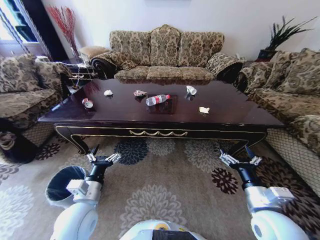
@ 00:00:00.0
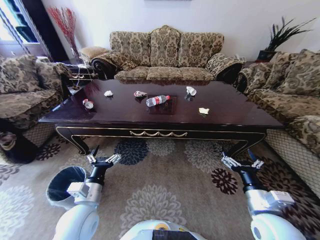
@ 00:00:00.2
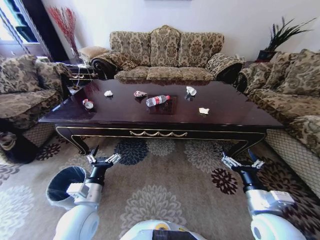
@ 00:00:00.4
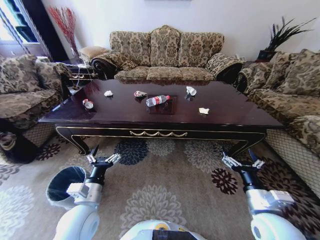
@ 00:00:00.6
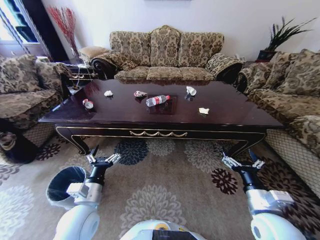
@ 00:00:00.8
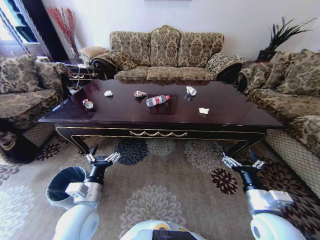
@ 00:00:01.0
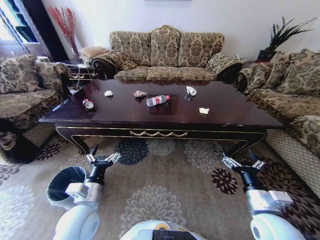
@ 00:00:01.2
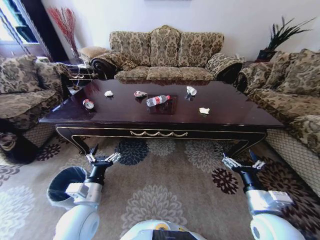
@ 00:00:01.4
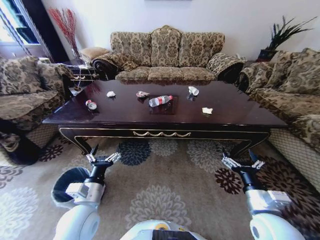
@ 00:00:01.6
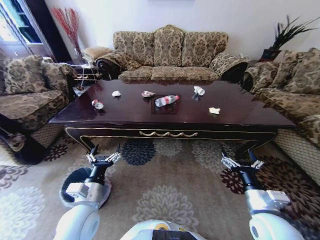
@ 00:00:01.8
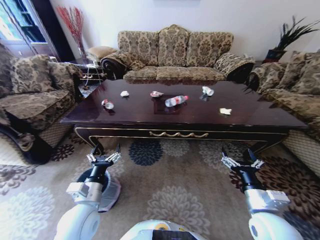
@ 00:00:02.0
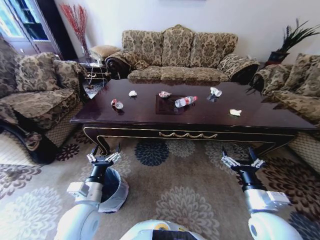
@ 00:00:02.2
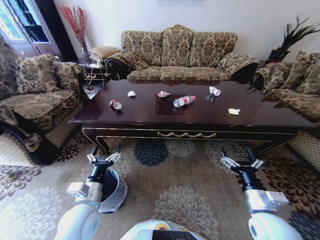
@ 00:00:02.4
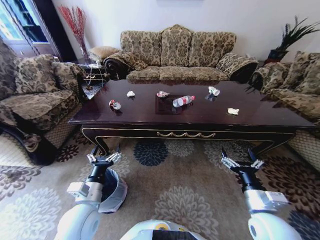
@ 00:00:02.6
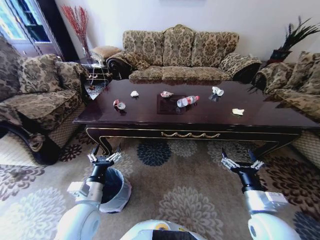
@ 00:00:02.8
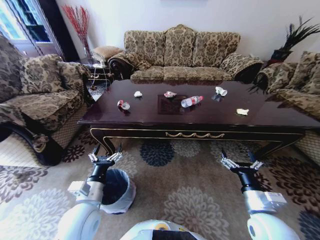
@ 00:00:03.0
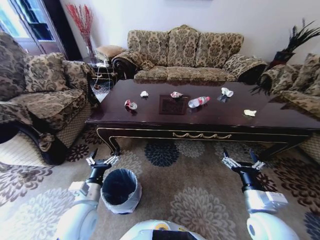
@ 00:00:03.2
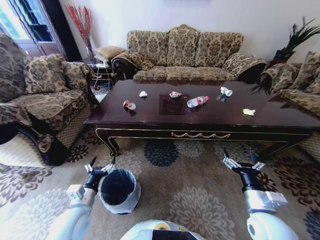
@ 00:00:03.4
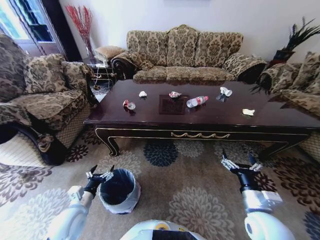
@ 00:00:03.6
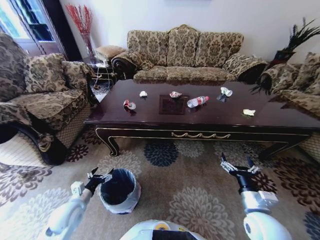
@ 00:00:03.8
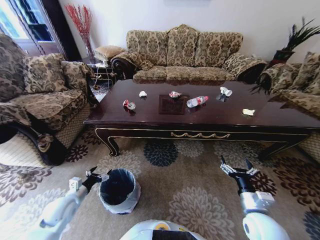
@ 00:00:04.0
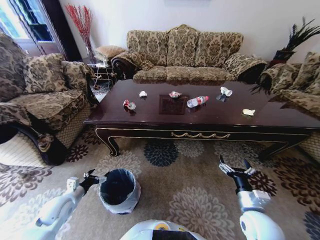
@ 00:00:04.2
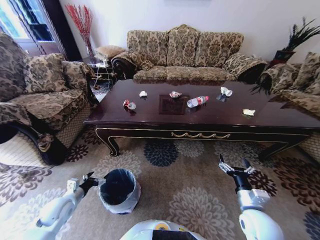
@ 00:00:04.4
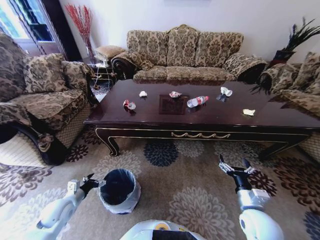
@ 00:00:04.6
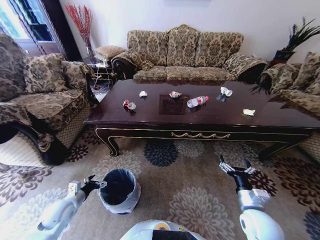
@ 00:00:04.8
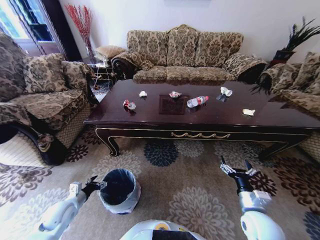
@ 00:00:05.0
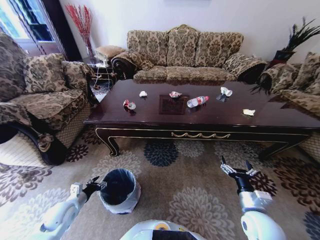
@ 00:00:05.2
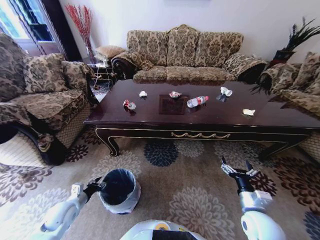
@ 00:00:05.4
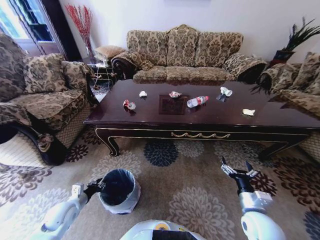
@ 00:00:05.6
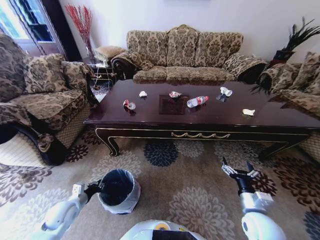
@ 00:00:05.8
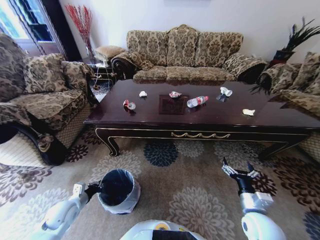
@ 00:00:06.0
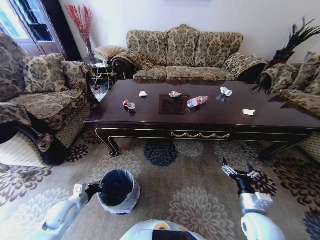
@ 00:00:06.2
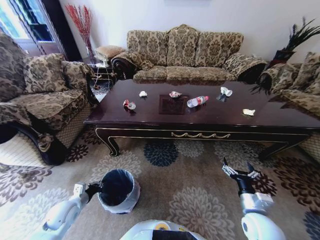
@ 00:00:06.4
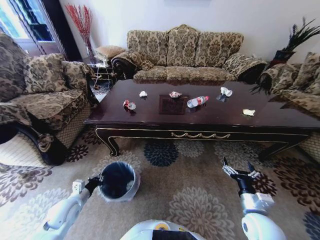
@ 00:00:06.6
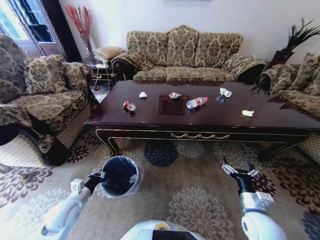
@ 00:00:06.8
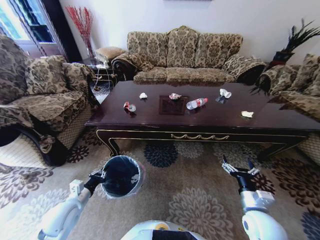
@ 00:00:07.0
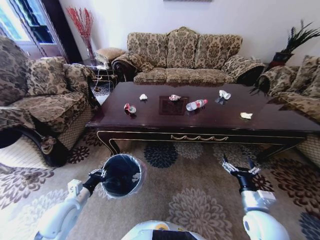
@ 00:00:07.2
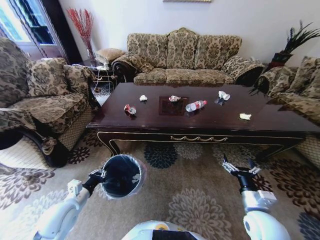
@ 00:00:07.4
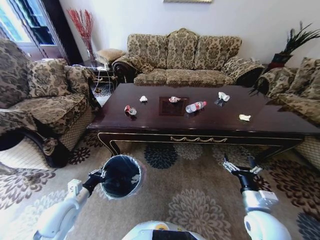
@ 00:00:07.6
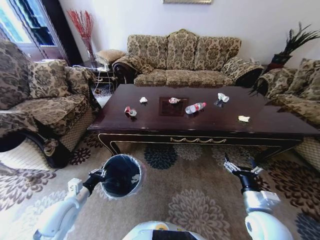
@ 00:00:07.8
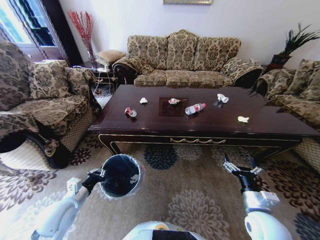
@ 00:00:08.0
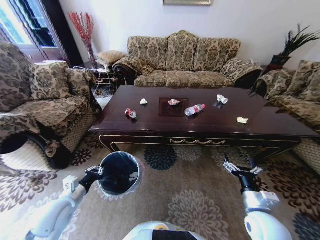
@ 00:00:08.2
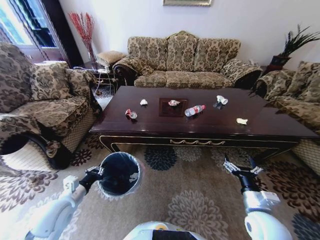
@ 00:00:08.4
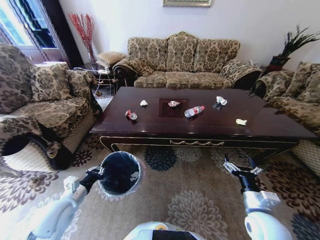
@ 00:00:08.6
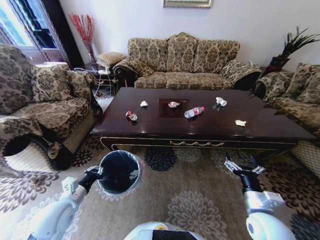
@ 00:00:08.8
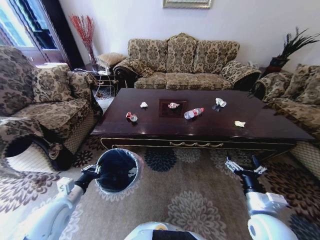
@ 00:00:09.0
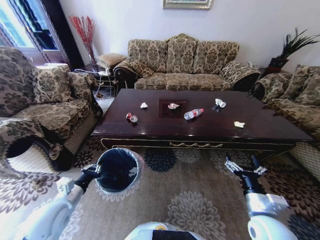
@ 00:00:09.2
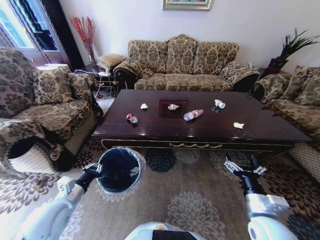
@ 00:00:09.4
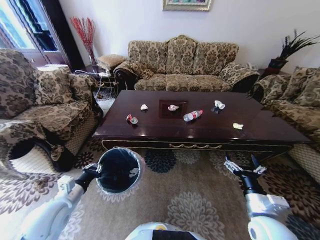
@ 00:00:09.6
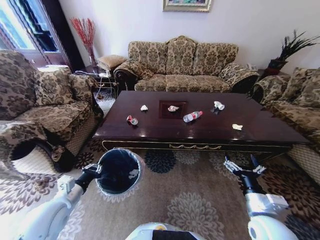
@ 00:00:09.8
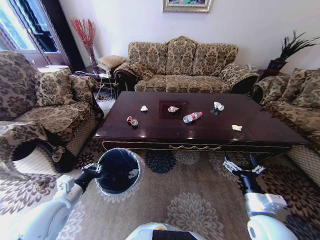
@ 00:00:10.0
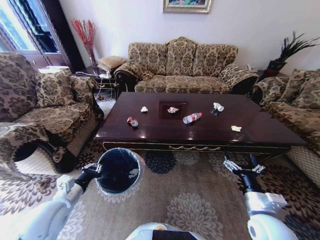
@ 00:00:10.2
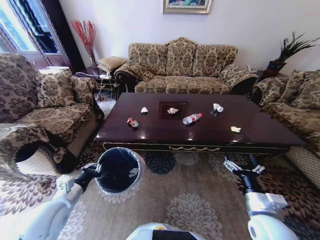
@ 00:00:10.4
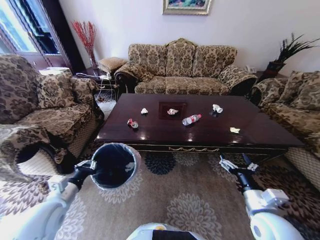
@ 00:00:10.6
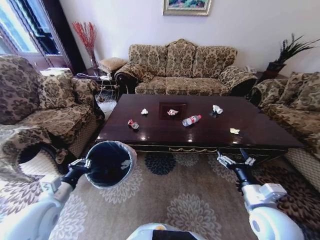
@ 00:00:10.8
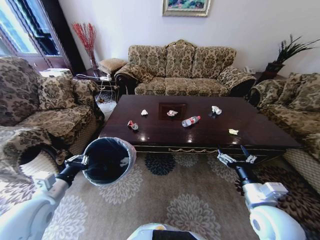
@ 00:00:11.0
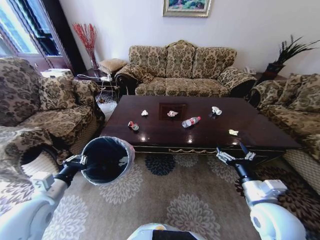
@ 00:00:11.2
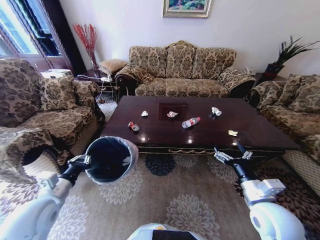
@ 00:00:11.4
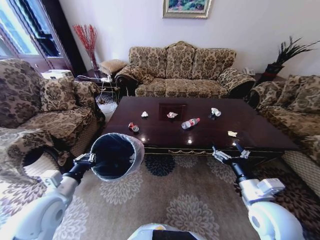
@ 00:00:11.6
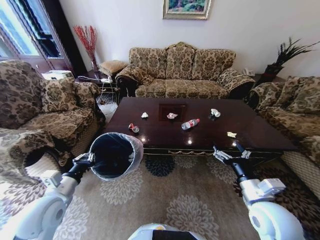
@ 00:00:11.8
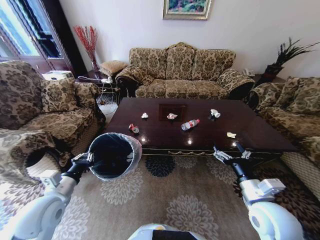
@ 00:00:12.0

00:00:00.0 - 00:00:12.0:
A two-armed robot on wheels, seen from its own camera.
Task of the whole recording: Move to the front of the table and place the trash on the table into the trash bin.
00:00:03.0 - 00:00:04.4: The right gripper shifts roughly 5 cm downward. Meanwhile the left gripper is displaced to the left and downward by approximately 20 cm.
00:00:04.4 - 00:00:06.0: The left gripper closes.
00:00:06.0 - 00:00:07.6: The left gripper moves upward, about 5 cm.
00:00:10.4 - 00:00:12.0: The right gripper changes place by roughly 5 cm.

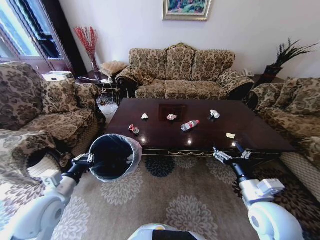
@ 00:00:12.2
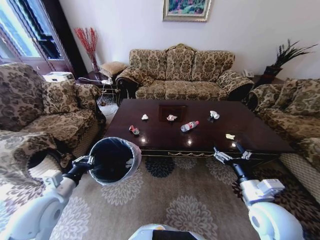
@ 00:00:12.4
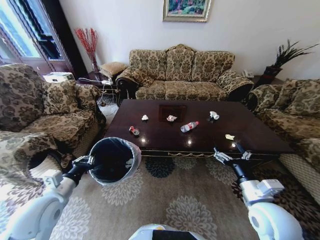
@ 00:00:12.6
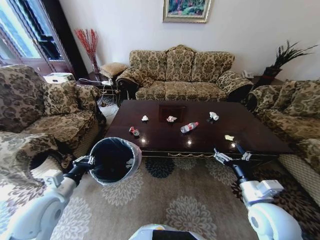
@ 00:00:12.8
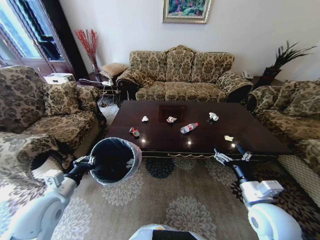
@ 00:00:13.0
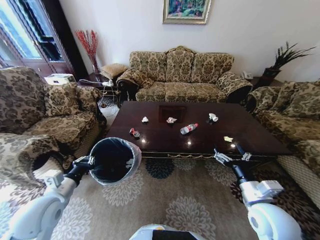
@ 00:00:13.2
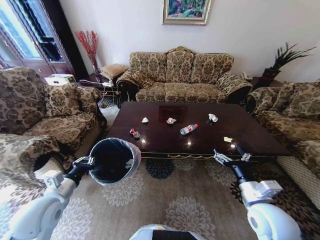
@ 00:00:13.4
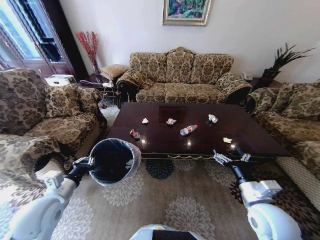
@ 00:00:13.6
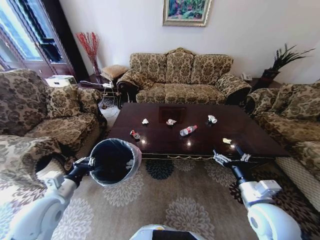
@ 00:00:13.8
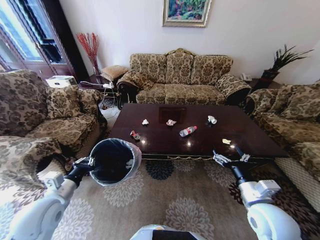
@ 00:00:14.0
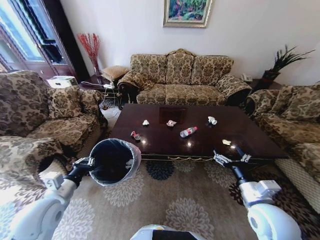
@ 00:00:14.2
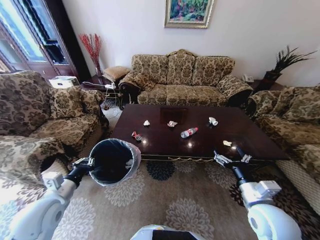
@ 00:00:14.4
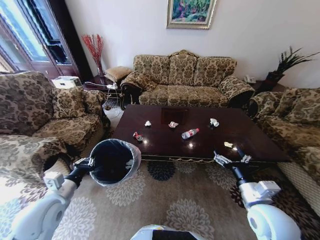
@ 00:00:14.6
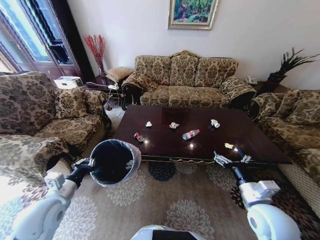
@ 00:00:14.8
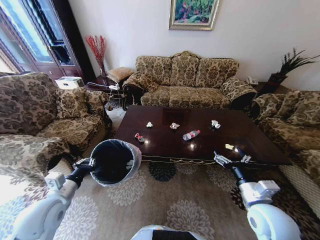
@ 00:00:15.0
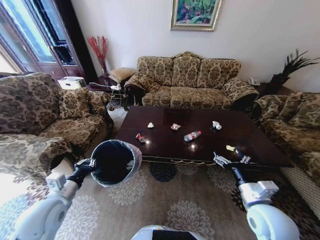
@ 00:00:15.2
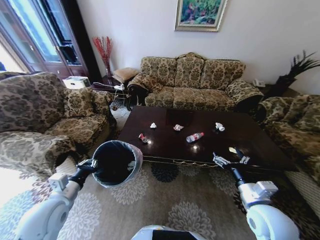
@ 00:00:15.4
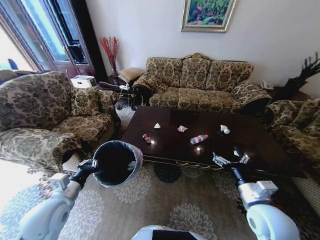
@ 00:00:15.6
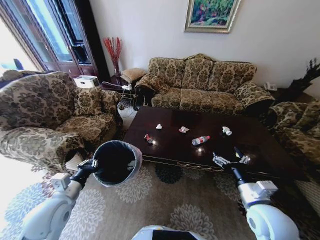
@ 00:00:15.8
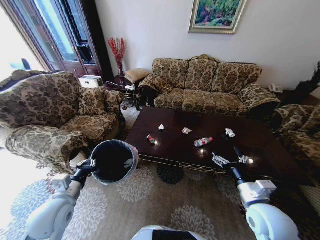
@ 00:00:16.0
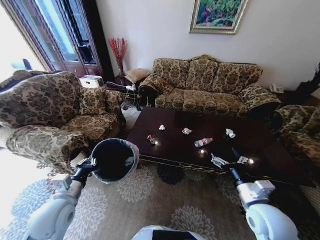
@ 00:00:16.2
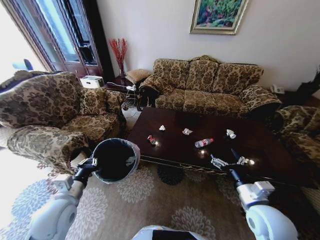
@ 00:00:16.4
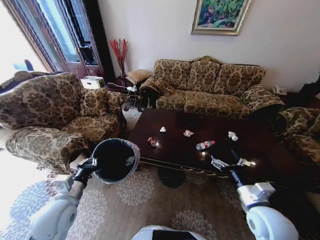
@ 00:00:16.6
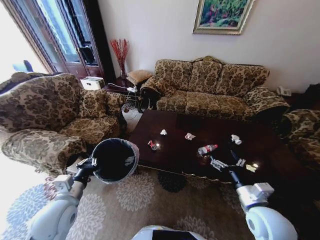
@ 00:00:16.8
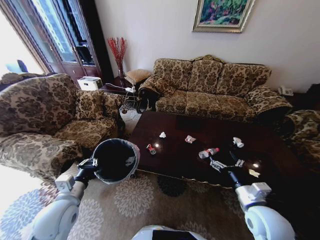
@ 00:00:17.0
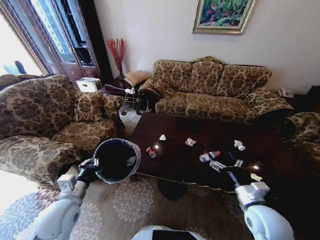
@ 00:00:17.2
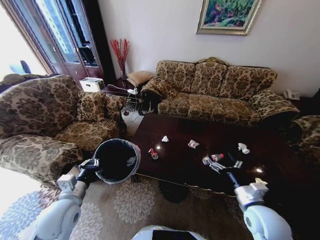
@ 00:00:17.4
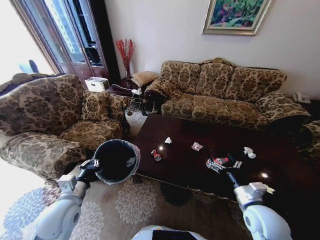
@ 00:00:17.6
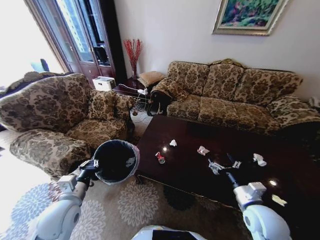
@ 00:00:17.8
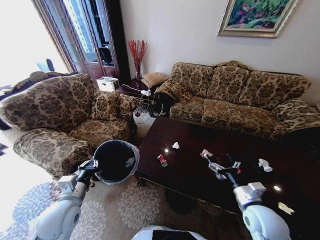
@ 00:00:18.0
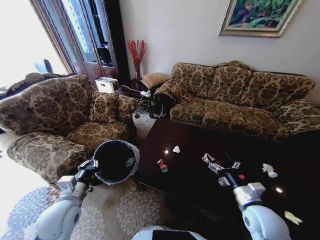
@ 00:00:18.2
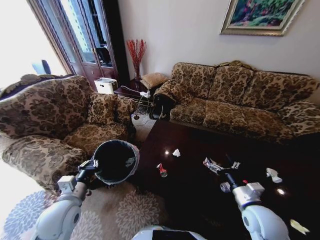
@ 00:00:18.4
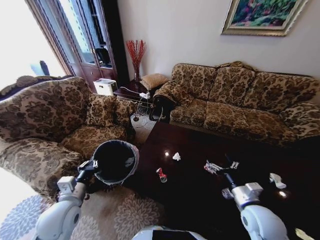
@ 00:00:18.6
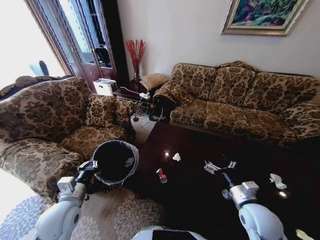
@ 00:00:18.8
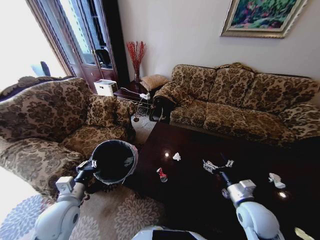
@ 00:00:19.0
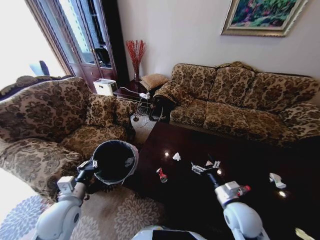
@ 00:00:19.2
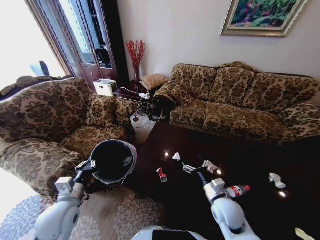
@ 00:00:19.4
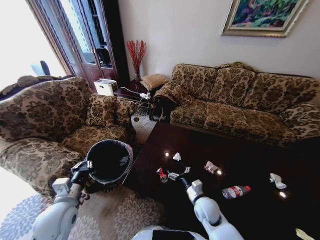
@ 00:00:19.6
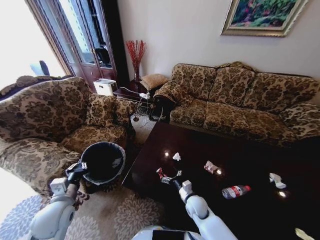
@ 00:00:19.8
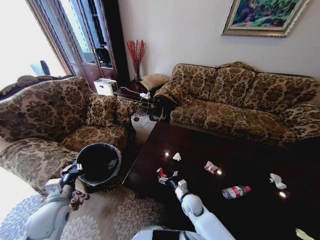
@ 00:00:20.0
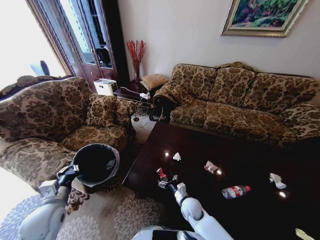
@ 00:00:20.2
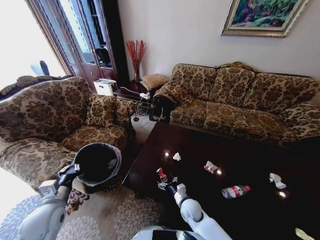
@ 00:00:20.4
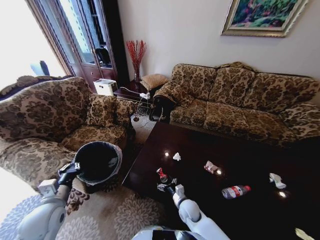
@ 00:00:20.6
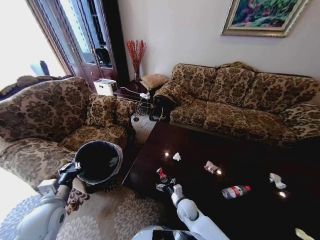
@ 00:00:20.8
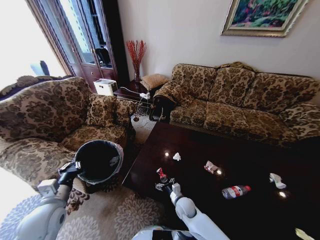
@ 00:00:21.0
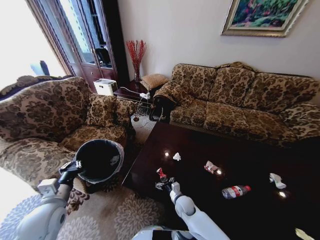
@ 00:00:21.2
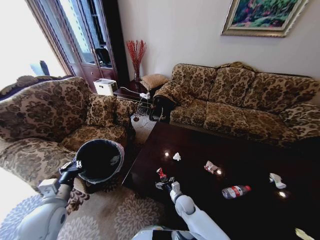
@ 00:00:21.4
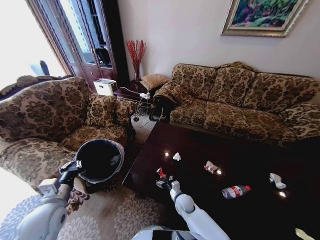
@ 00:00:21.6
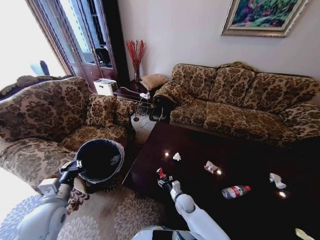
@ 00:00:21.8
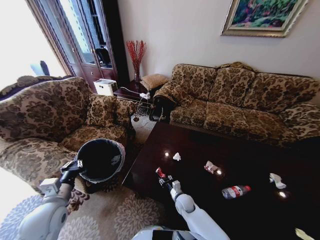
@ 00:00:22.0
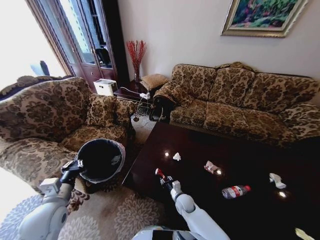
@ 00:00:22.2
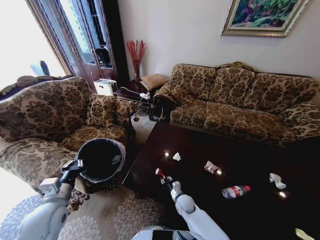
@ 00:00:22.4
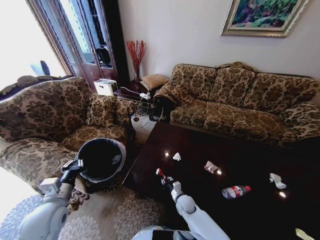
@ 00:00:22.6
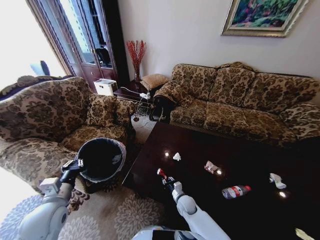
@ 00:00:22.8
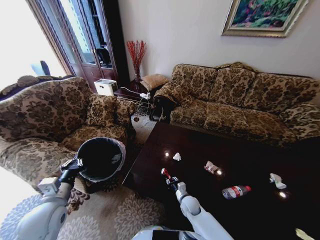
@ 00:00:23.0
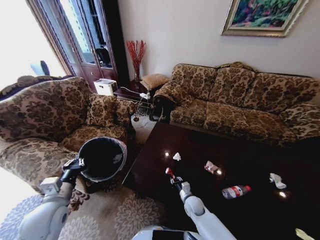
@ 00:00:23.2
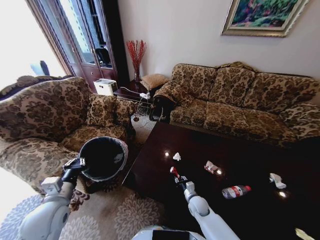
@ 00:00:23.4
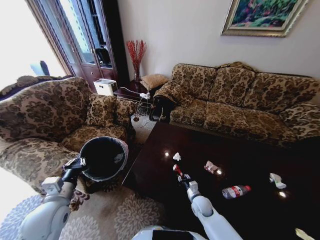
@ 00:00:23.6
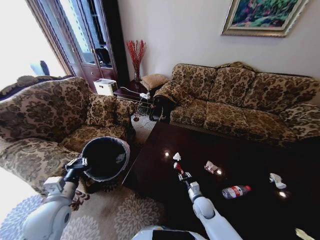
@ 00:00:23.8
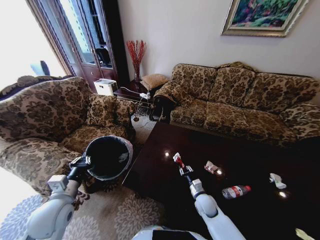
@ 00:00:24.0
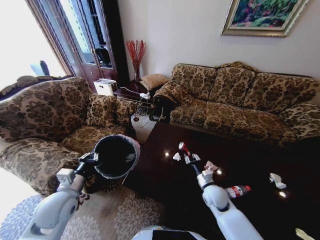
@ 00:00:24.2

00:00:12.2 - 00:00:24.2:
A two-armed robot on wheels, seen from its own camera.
Task of the whole recording: Move to the front of the table and place the trash on the table into the trash bin.
00:00:18.2 - 00:00:19.8: The right gripper travels downward, to the left and forward by about 25 cm.
00:00:19.8 - 00:00:21.2: The right gripper travels downward and to the left by approximately 10 cm.
00:00:21.2 - 00:00:22.6: The right gripper closes.
00:00:22.6 - 00:00:24.2: The right gripper moves upward and to the right, some 15 cm.
